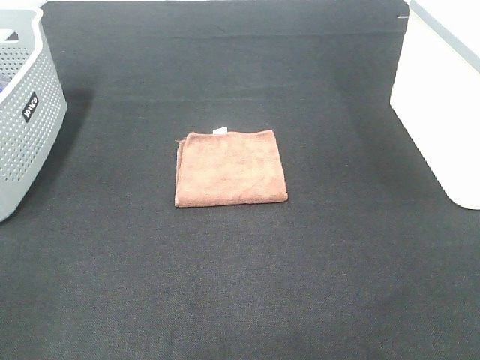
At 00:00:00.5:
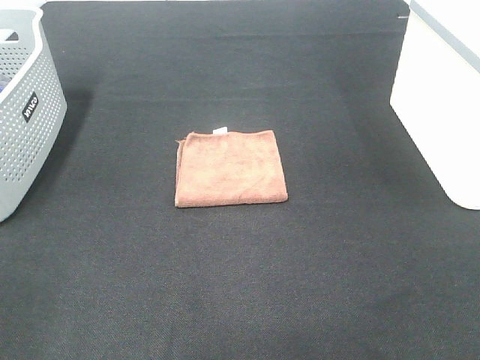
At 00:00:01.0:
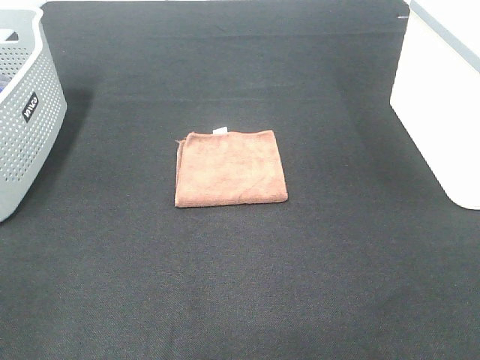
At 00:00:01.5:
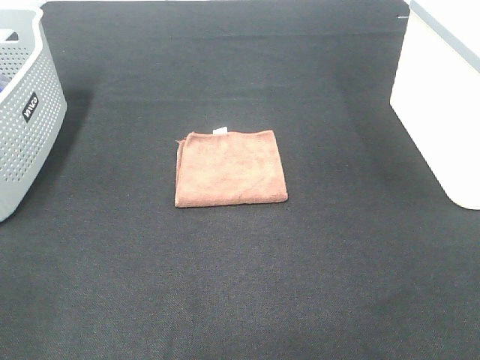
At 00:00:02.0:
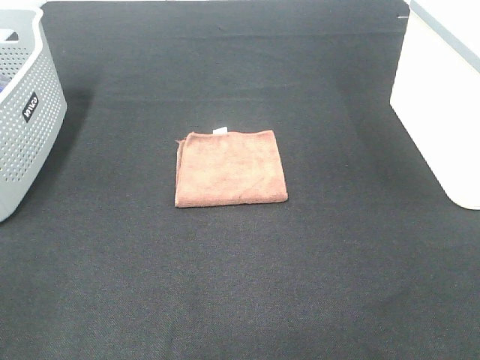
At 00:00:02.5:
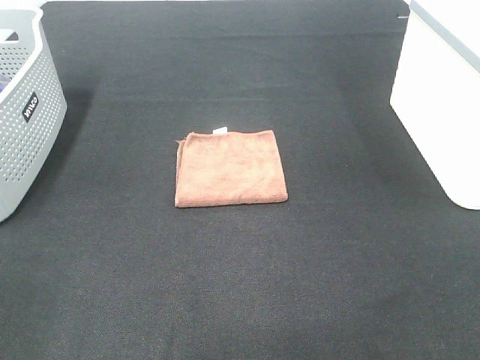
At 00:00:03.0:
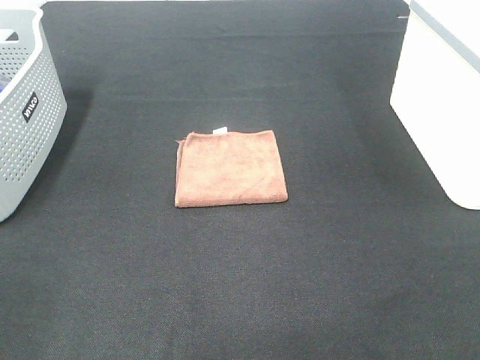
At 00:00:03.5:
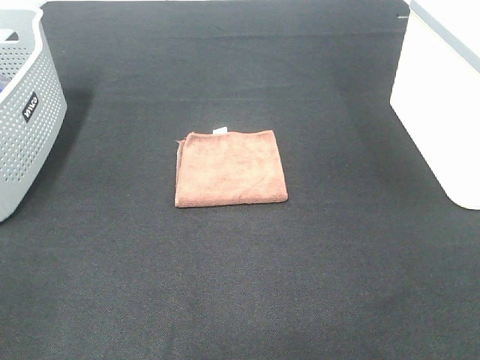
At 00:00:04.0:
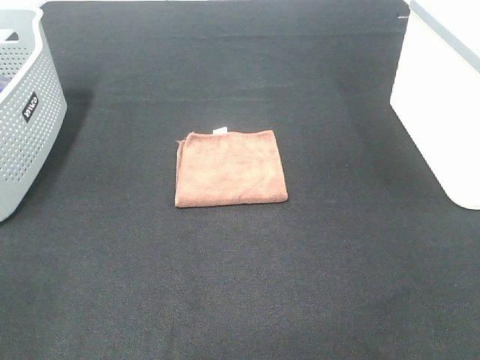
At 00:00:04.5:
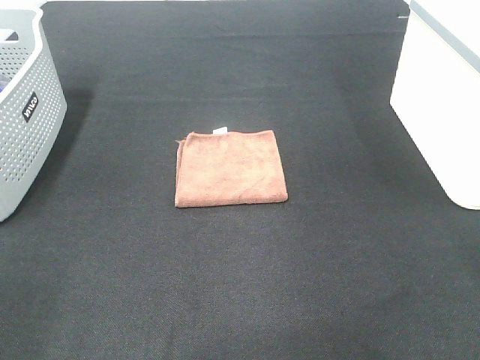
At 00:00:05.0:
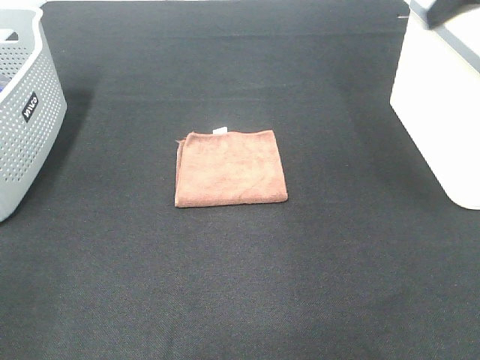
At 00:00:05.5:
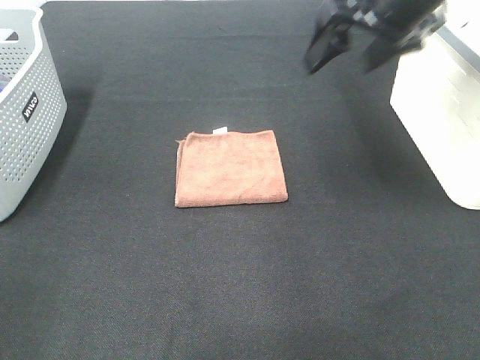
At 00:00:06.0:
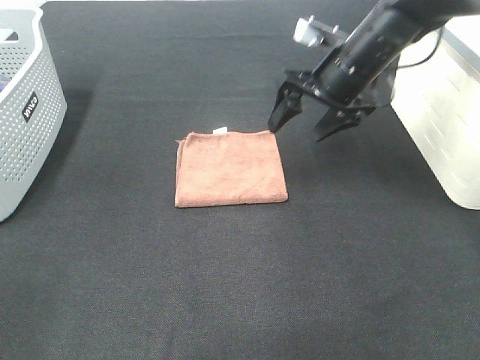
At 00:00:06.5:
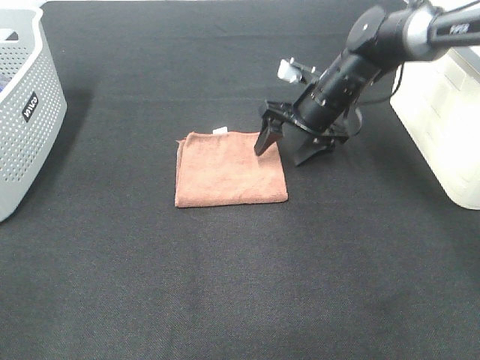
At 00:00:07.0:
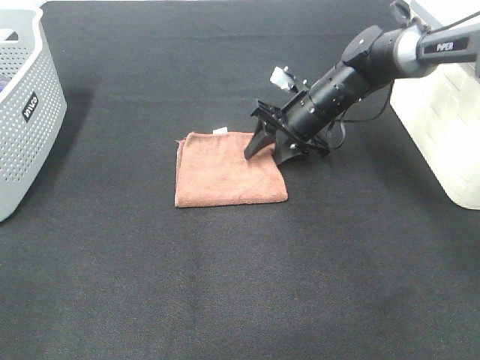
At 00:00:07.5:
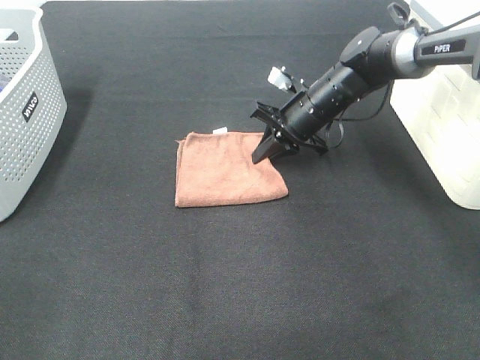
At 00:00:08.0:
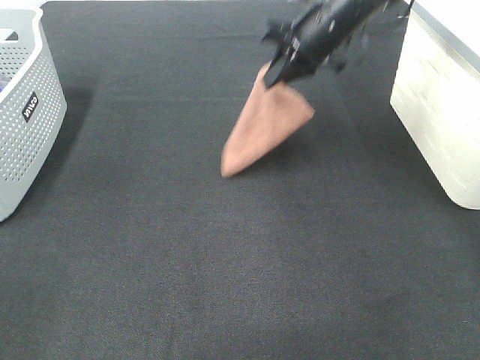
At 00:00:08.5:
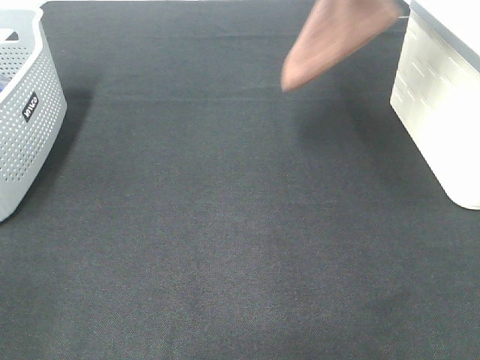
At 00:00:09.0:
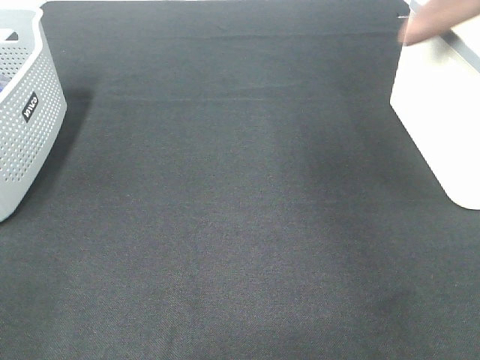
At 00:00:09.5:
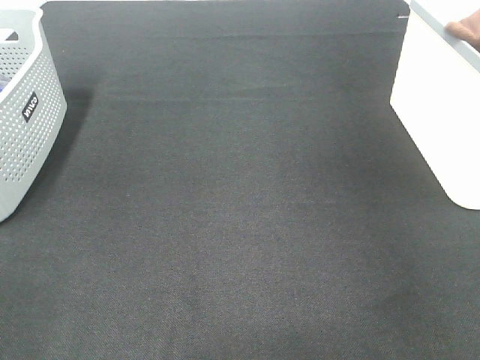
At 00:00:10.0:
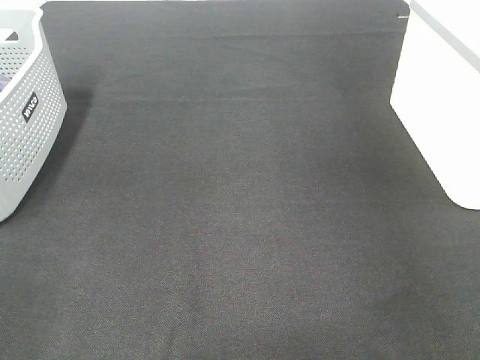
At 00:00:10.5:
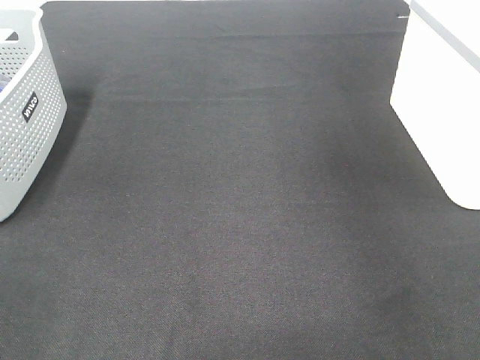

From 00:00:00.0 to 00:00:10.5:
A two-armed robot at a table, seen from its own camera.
Step, from 00:00:00.0 to 00:00:07.0: Right hand: grab the folded brown towel.
Step, from 00:00:07.5 to 00:00:10.0: Right hand: place the brown towel in right basket.
From 00:00:00.0 to 00:00:02.0: Both grippers stay put.
From 00:00:04.0 to 00:00:06.5: The right gripper goes approximately 50 cm forward and downward.
From 00:00:06.5 to 00:00:08.5: The right gripper moves upward, roughly 25 cm, and closes its fingers.
From 00:00:08.5 to 00:00:10.5: The right gripper shifts about 15 cm to the right, and opens up.

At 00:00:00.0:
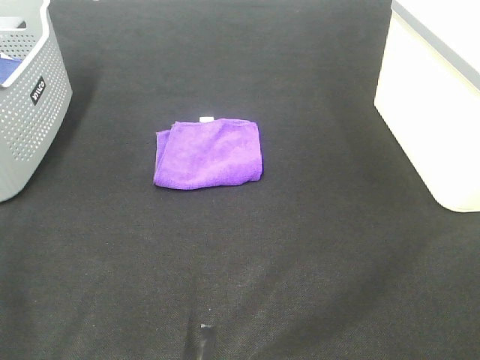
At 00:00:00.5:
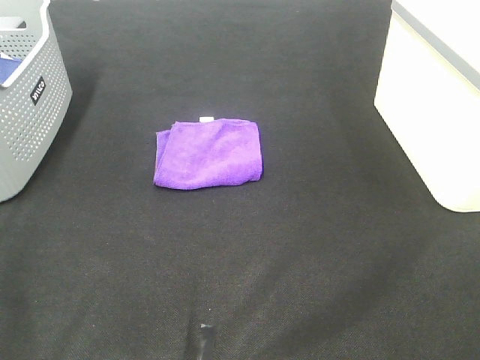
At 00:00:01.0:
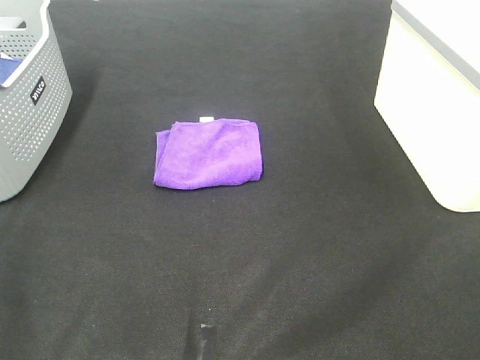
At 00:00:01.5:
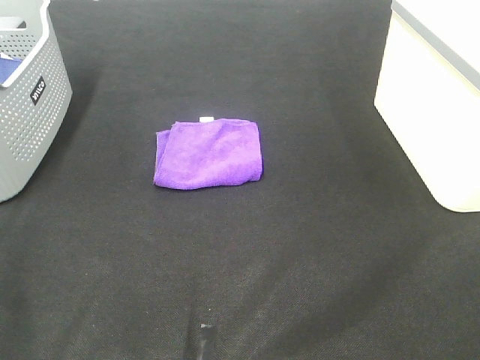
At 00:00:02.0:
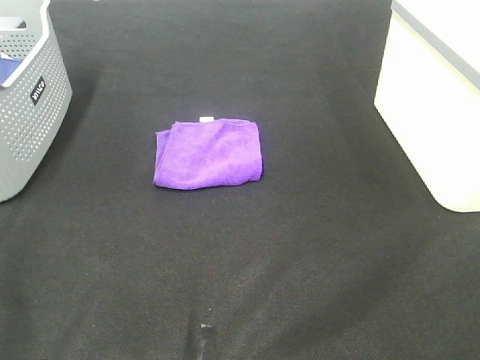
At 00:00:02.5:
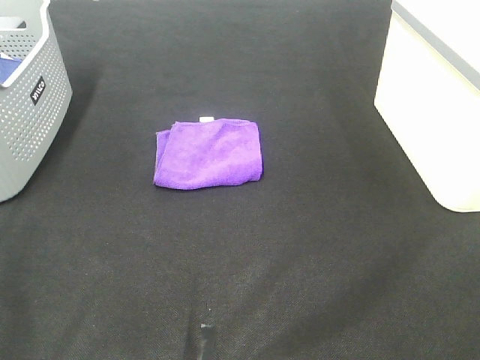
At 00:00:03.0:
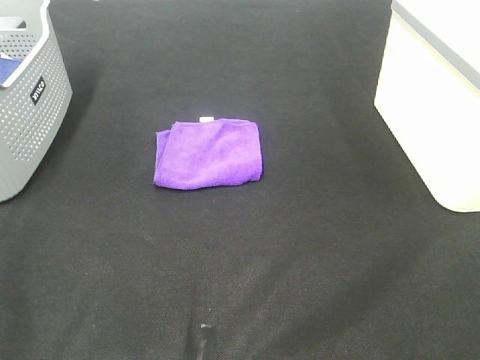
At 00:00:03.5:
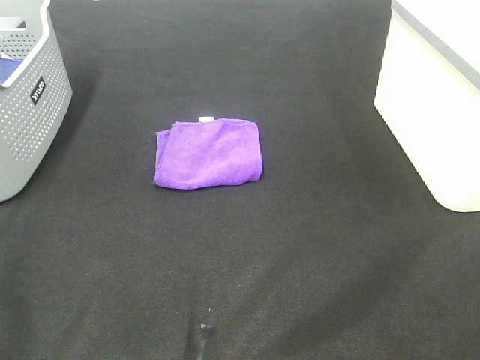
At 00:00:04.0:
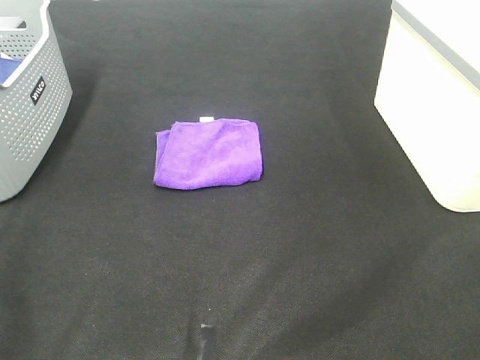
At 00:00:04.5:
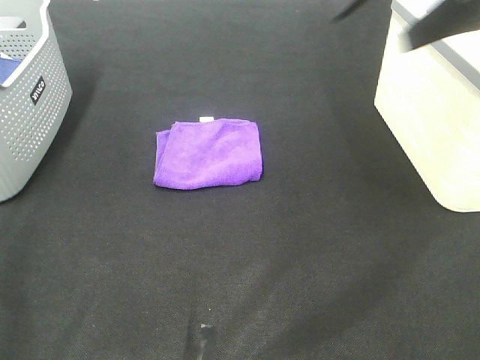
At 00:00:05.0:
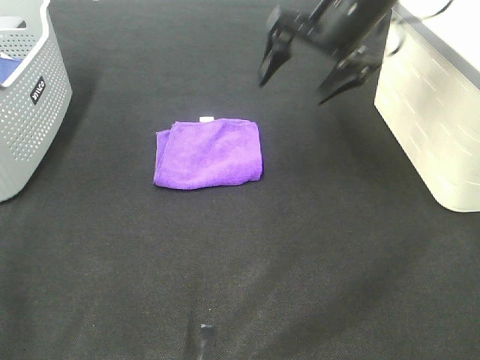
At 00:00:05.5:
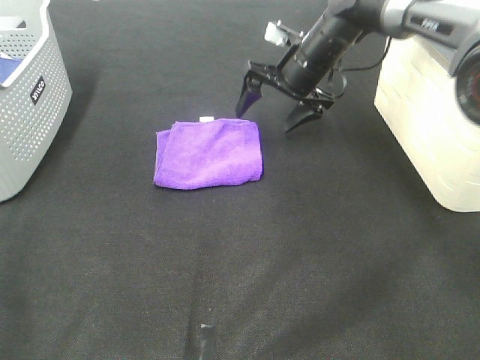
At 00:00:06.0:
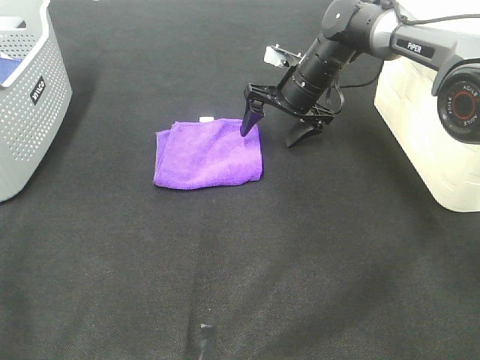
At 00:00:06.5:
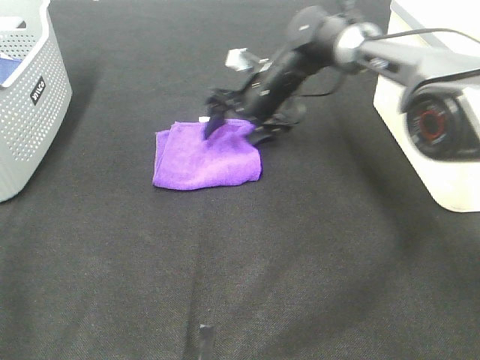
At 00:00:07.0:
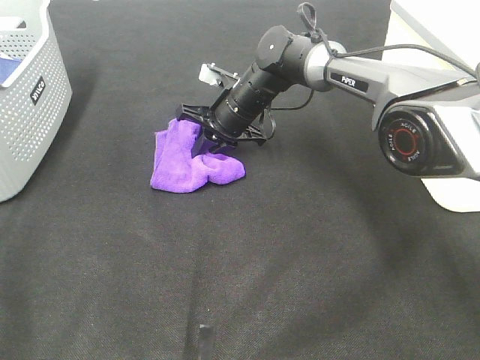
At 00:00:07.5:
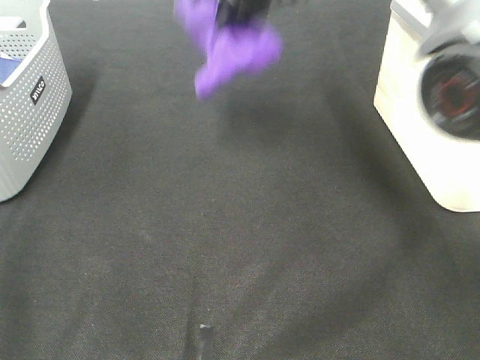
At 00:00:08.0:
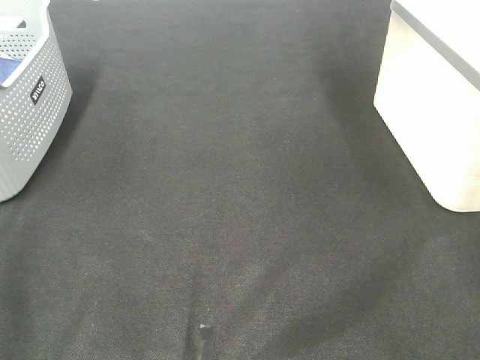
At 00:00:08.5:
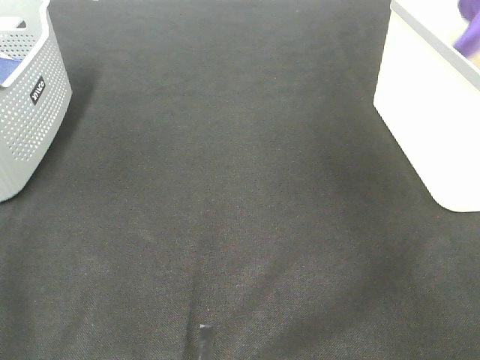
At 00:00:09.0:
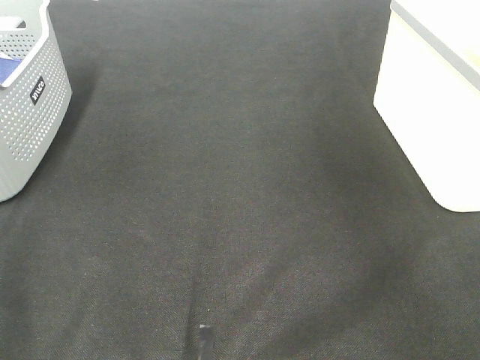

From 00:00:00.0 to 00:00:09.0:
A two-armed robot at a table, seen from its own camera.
Step, from 00:00:00.0 to 00:00:07.0: Right hand: grab the folded purple towel.
Step, from 00:00:07.5 to 00:00:08.5: Right hand: place the purple towel in right basket.
From 00:00:00.0 to 00:00:02.0: Both grippers stay about where they are.
From 00:00:02.0 to 00:00:04.5: The right gripper travels forward by roughly 30 cm.
From 00:00:04.5 to 00:00:07.0: The right gripper heads downward, to the left and forward, covering approximately 35 cm, and closes.
From 00:00:07.0 to 00:00:09.0: The right gripper moves to the right and upward, roughly 40 cm, and opens up.

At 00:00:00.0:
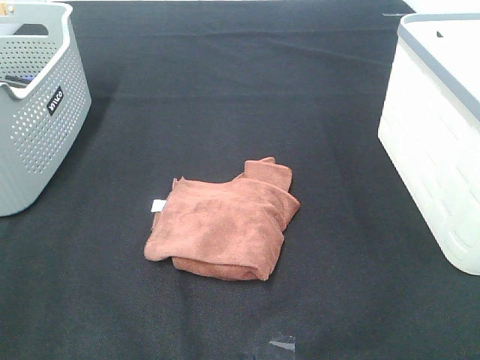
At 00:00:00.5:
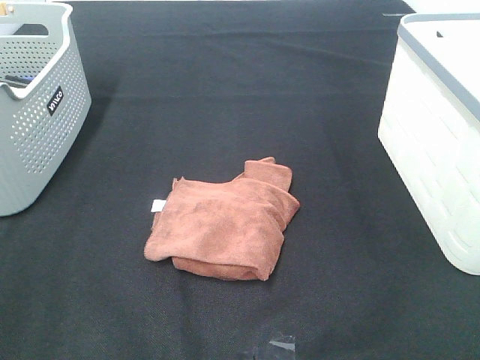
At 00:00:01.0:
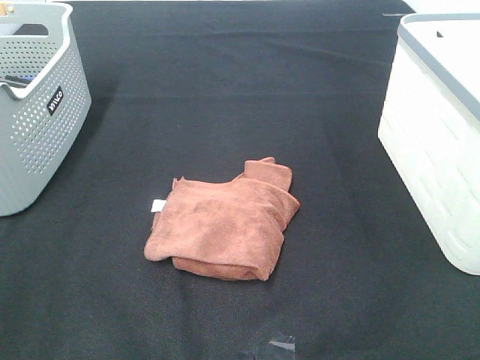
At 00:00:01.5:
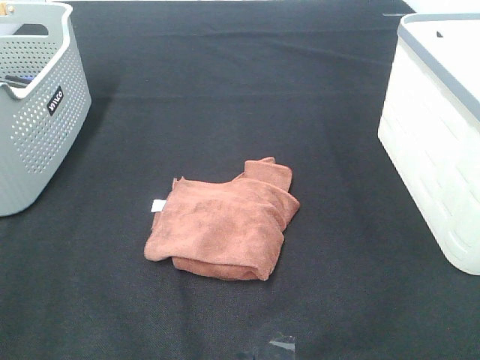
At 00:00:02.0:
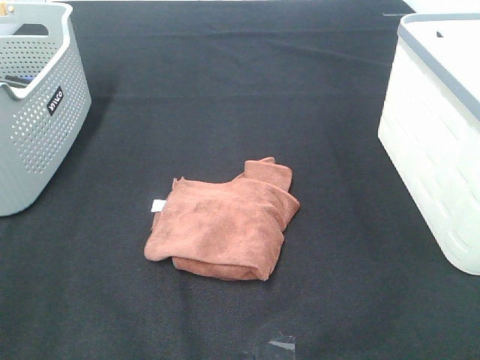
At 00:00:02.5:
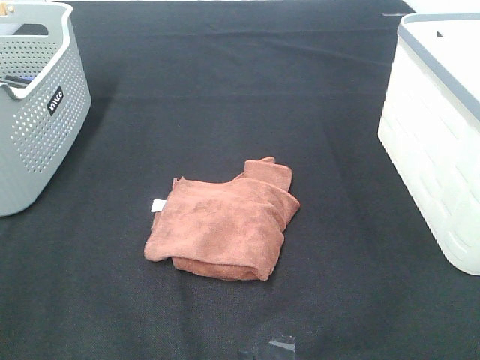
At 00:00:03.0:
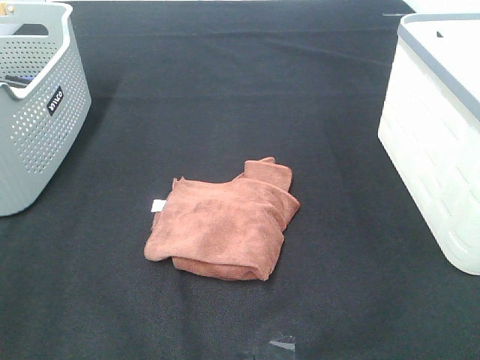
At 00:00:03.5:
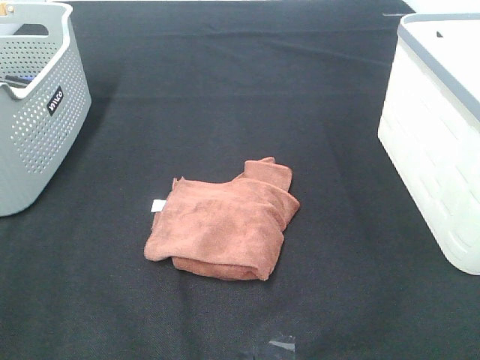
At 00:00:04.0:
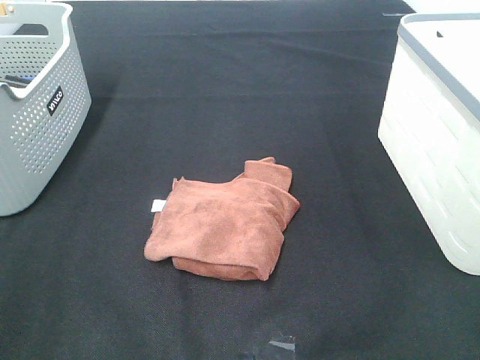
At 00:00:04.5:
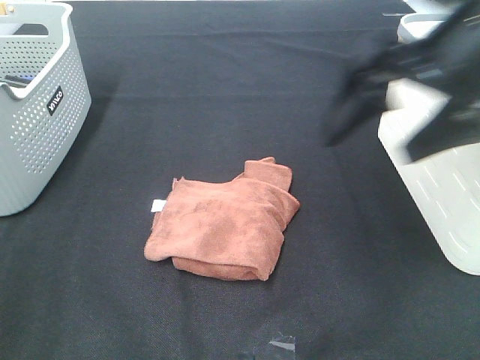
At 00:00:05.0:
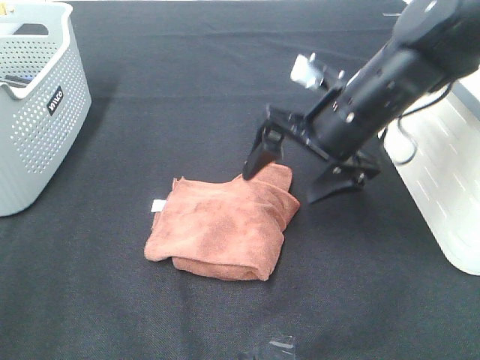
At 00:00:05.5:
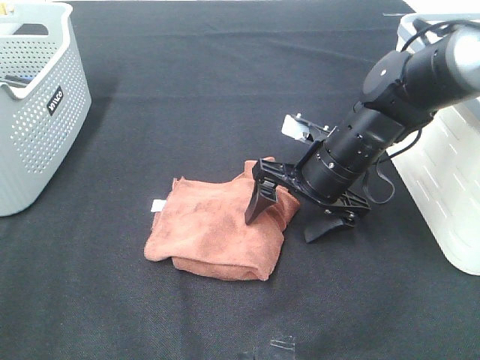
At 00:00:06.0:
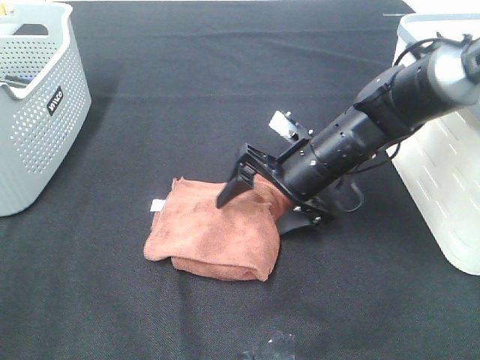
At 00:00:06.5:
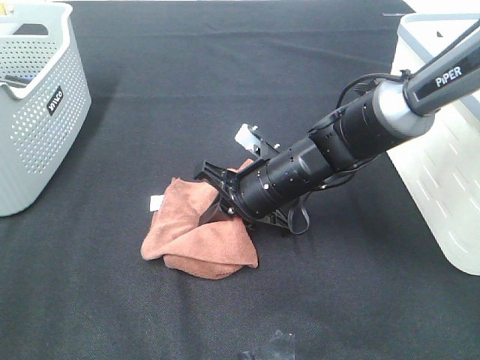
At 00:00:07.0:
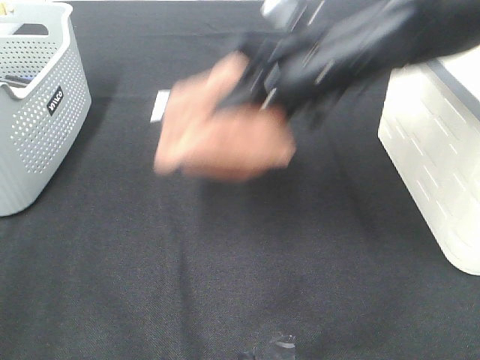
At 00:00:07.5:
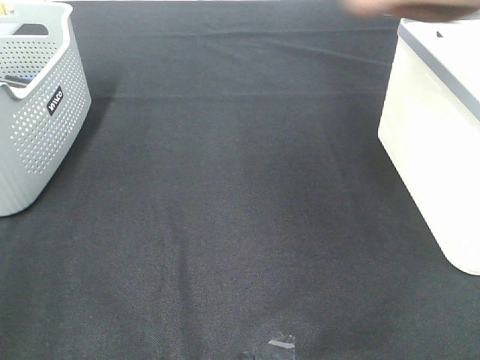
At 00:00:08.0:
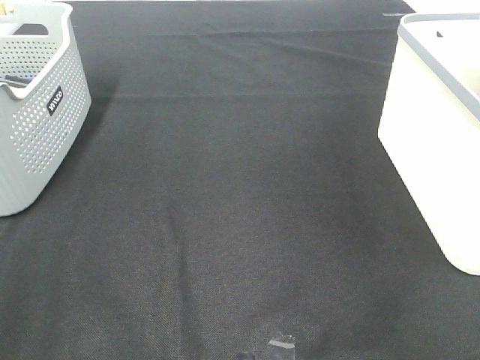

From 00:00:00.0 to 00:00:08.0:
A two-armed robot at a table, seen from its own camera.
Step, from 00:00:00.0 to 00:00:06.5: Right hand: grab the folded brown towel.
From 00:00:00.0 to 00:00:02.0: Both grippers stay about where they are.
From 00:00:04.0 to 00:00:06.0: The right gripper travels downward, forward and to the left by approximately 35 cm.
From 00:00:06.0 to 00:00:08.0: The right gripper travels upward and to the right by approximately 35 cm, and closes its fingers.
